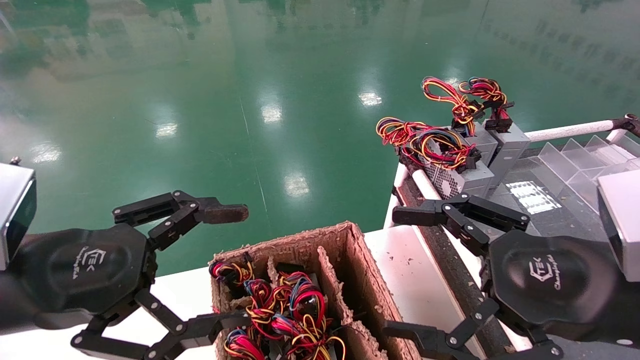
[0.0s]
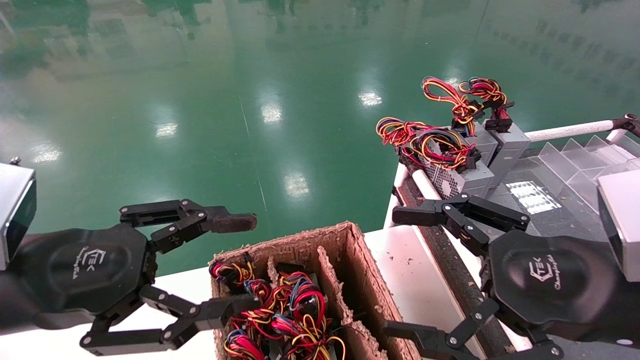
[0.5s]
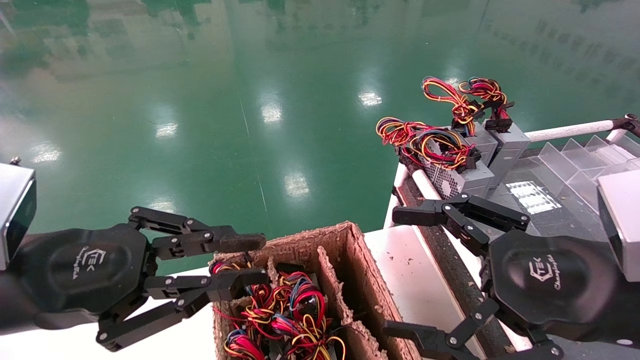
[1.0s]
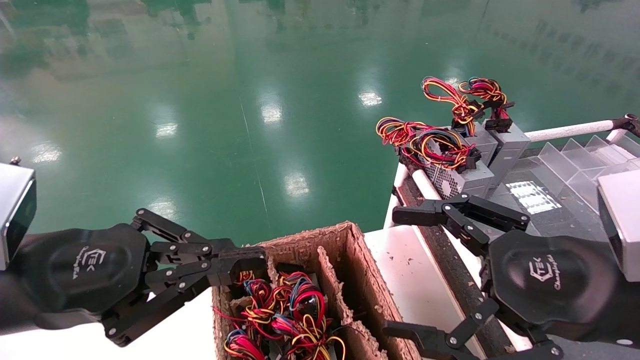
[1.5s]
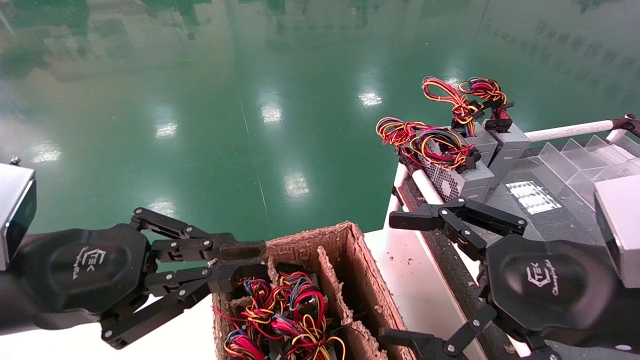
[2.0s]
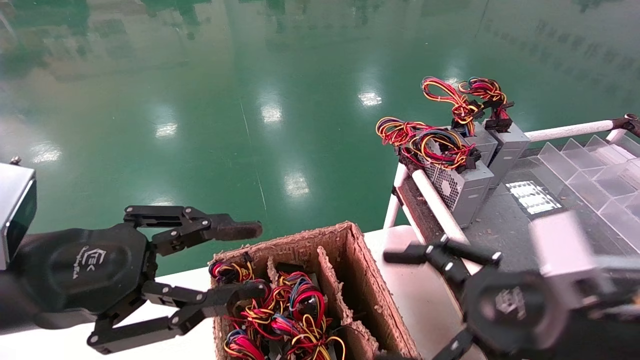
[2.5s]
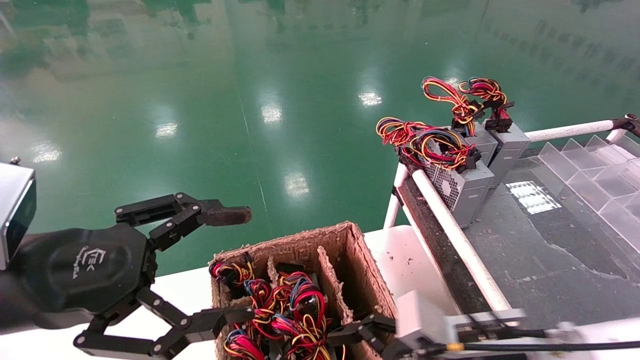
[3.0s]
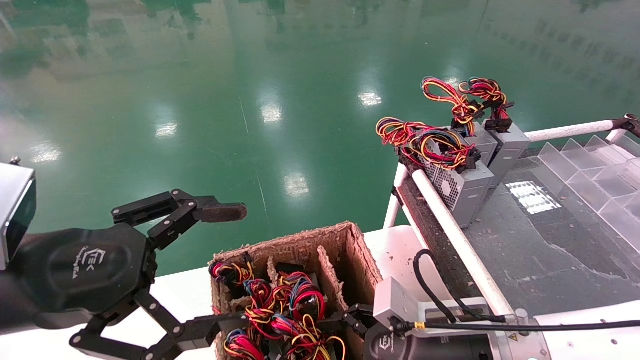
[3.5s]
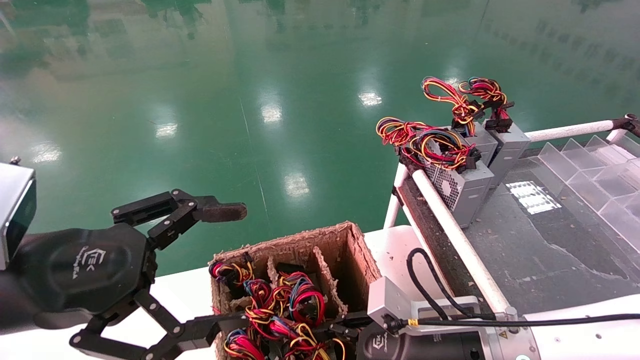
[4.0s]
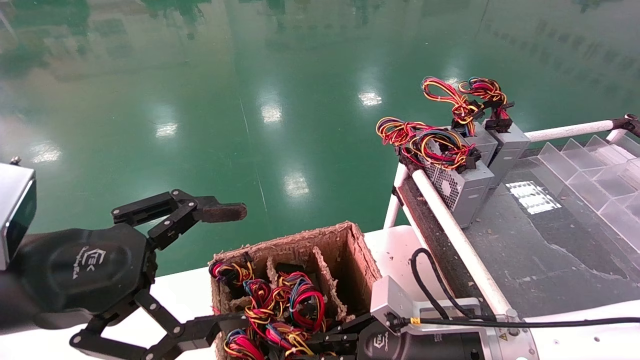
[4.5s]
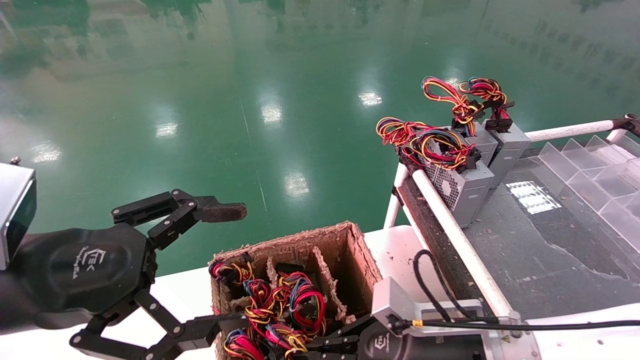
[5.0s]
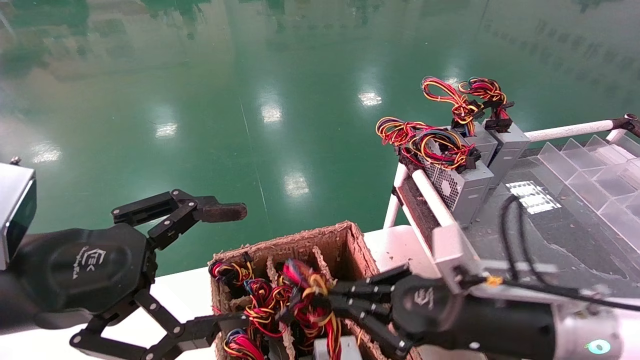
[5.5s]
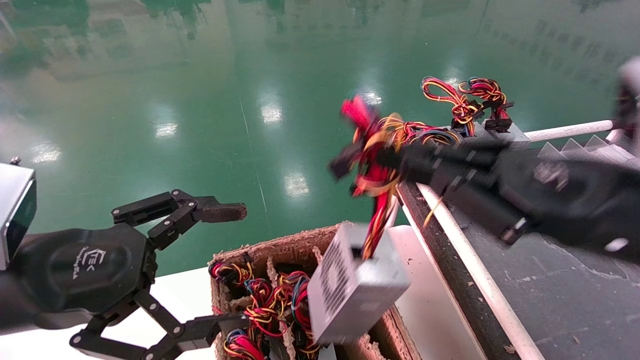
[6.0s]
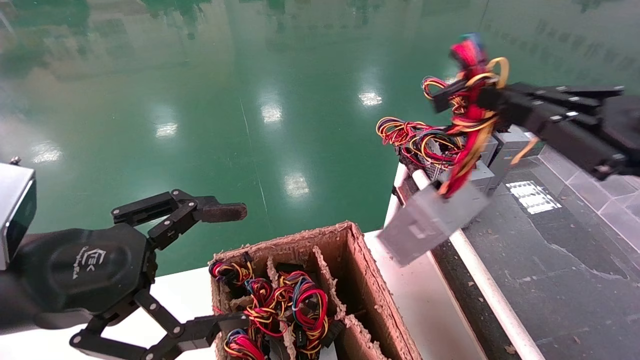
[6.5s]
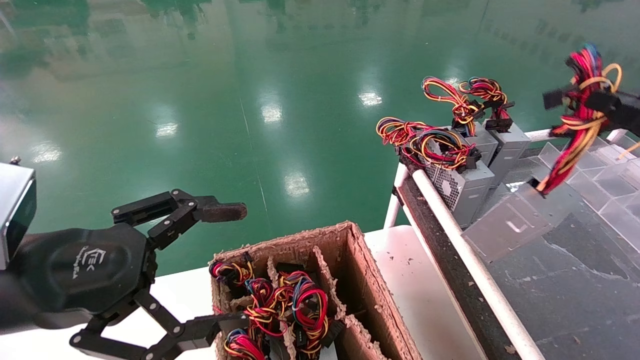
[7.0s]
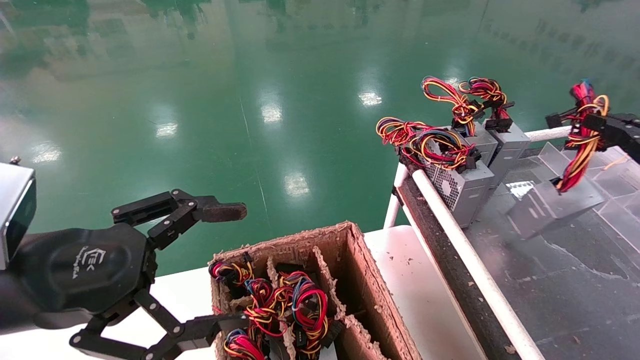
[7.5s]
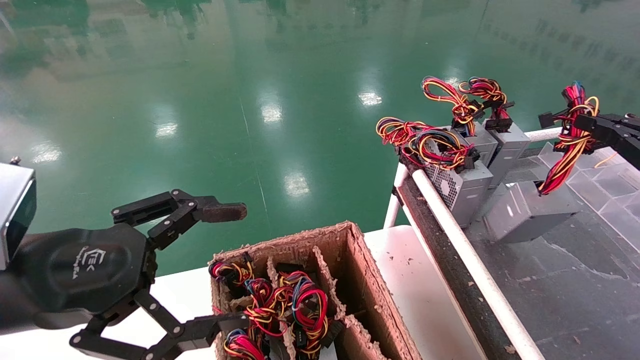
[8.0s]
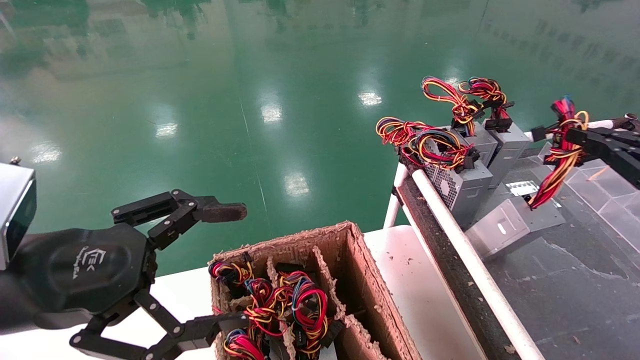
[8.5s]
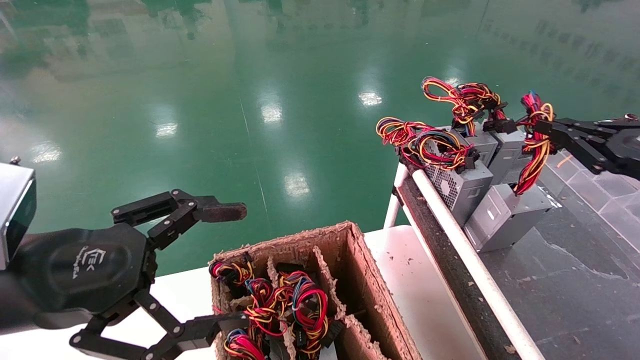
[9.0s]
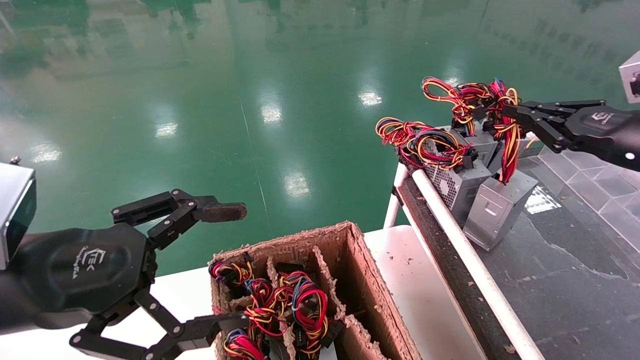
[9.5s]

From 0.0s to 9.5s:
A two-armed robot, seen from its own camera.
Step, from 1.5s to 4.5s: Grab and lift the power supply from the large box.
From 0.0s to 2.0s: The left gripper closes.
From 2.0s to 4.0s: The left gripper opens up. Meanwhile the right gripper is displaced downward, forward and to the left by about 20 cm, and closes.
From 4.0s to 5.5s: The right gripper travels upward by about 5 cm, and closes up.
From 5.5s to 7.5s: The right gripper heads to the right and upward, covering approximately 30 cm.
From 7.5s to 9.5s: The right gripper shifts roughly 10 cm forward and to the left.

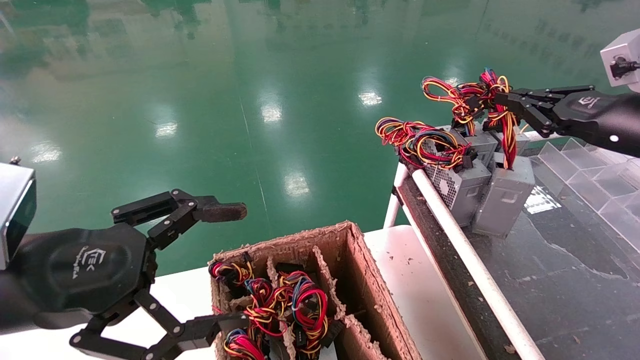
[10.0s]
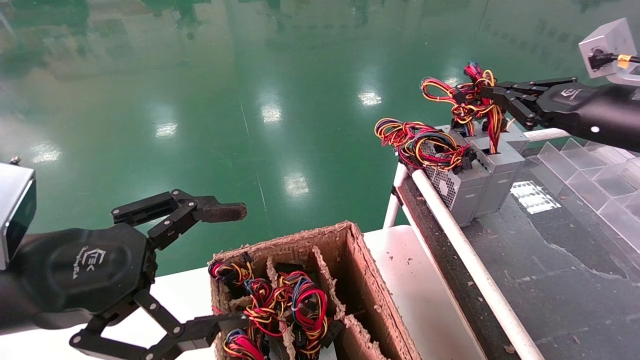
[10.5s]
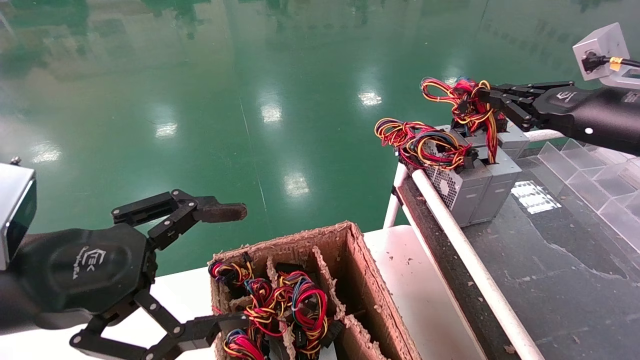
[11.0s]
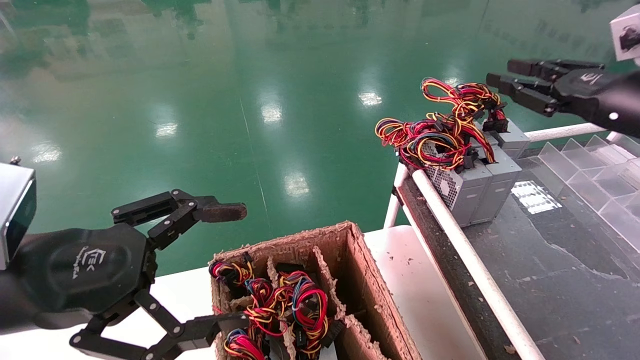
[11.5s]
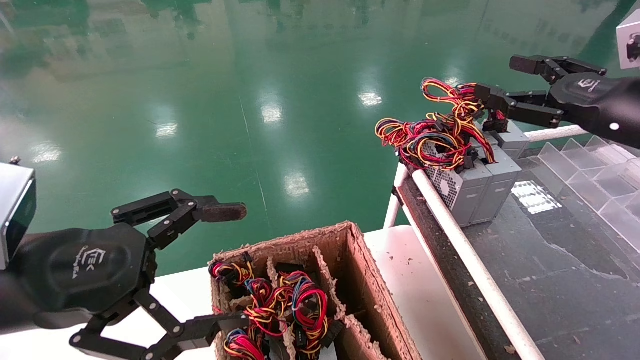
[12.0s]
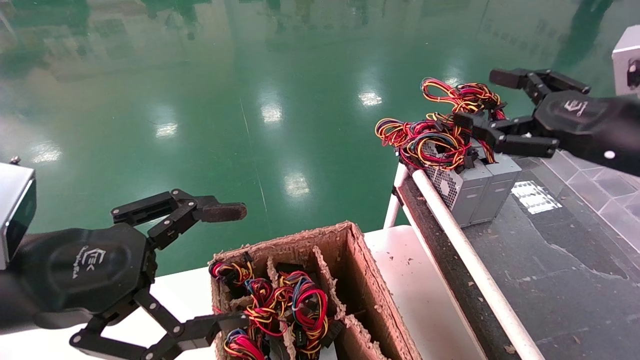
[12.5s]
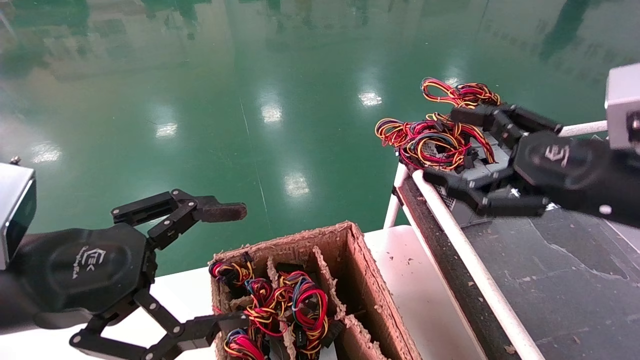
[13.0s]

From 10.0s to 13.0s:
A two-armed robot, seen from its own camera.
From 10.0s to 11.5s: The grippers make only small movements.
From 11.5s to 13.0s: The right gripper moves backward, to the left and downward, some 15 cm, and opens its fingers.

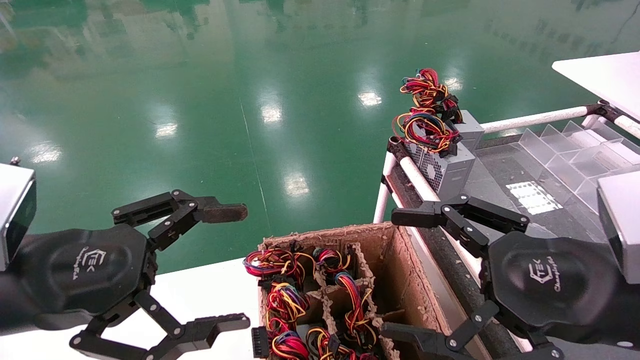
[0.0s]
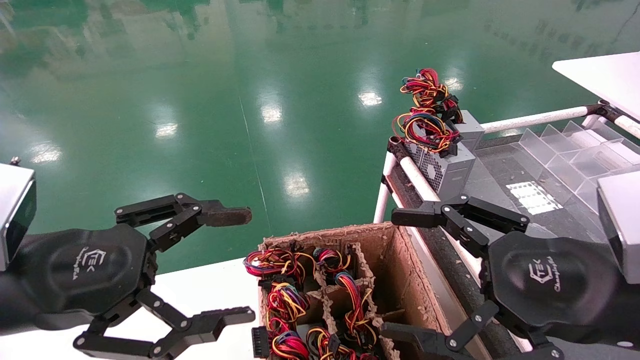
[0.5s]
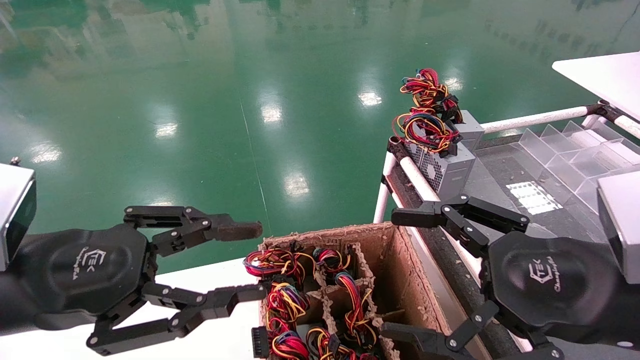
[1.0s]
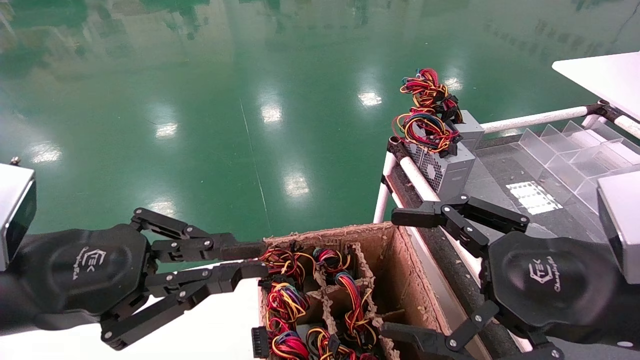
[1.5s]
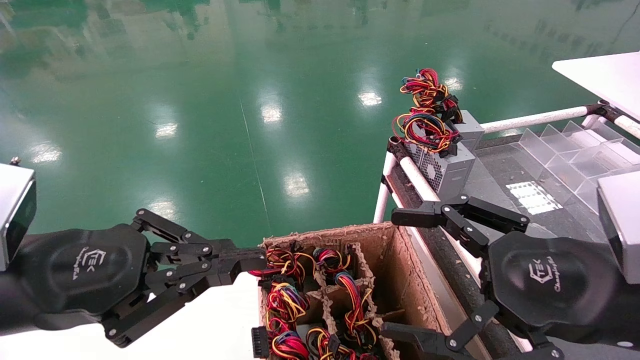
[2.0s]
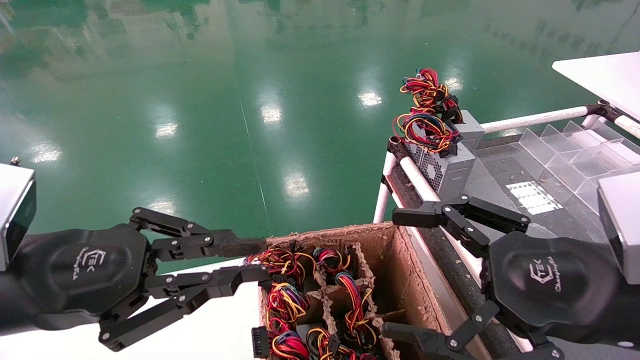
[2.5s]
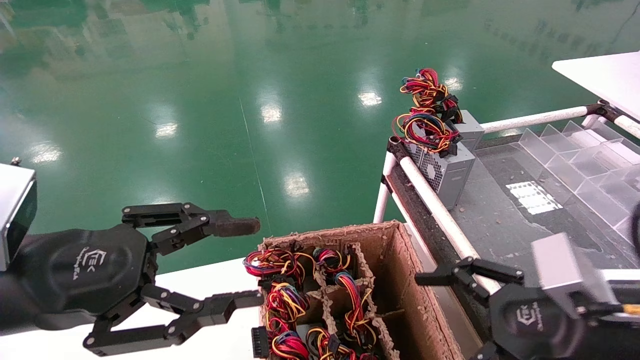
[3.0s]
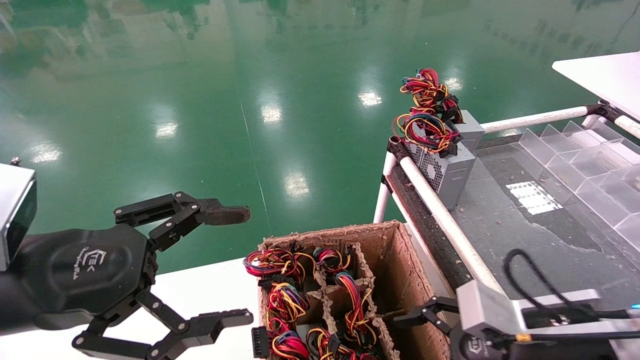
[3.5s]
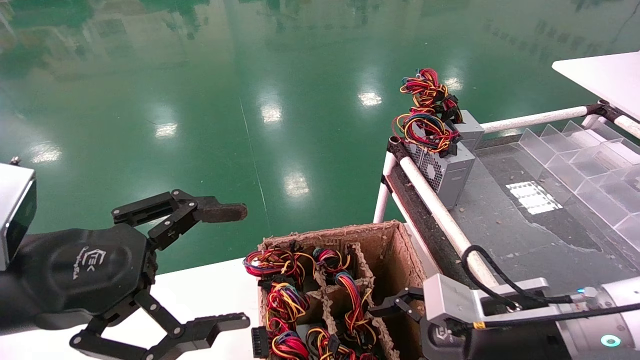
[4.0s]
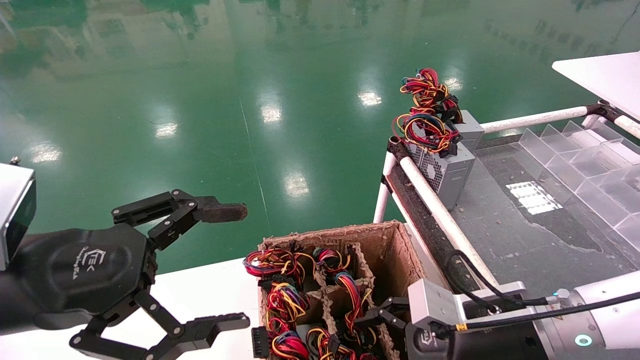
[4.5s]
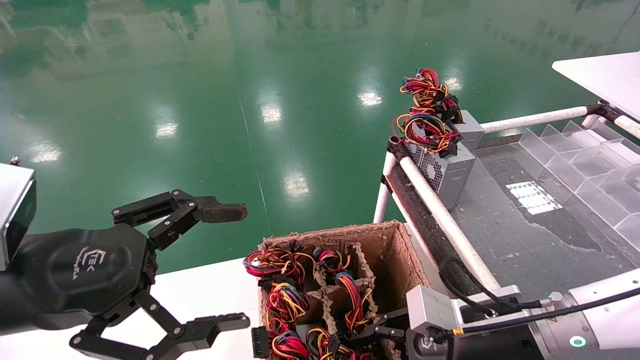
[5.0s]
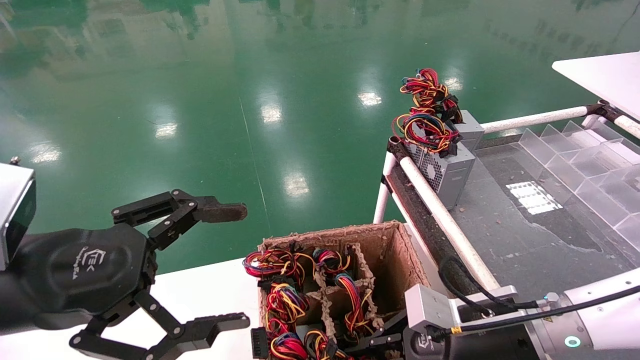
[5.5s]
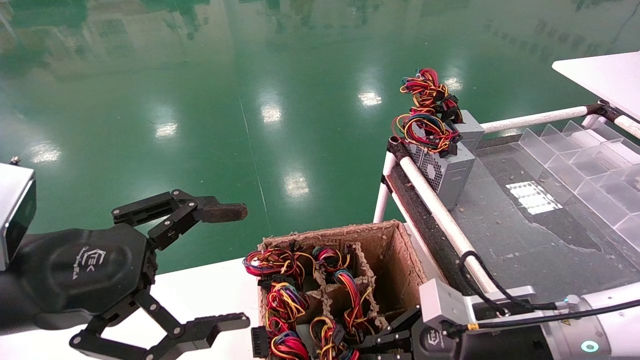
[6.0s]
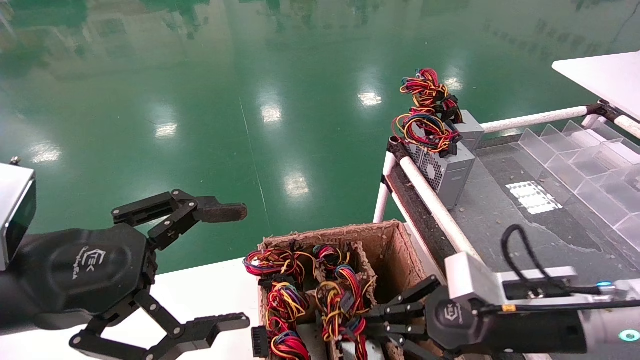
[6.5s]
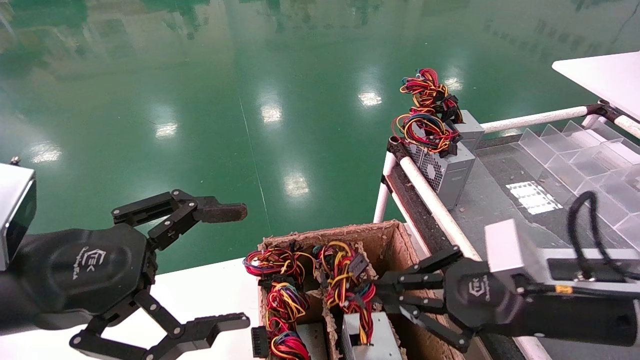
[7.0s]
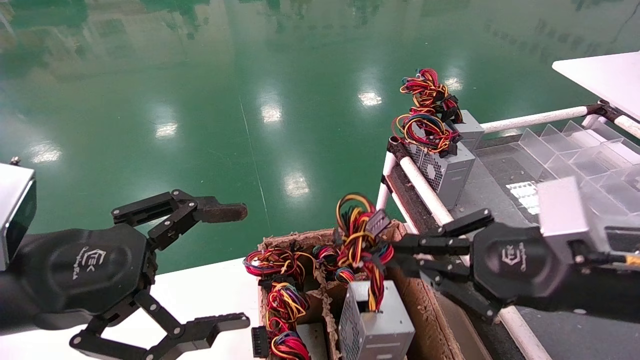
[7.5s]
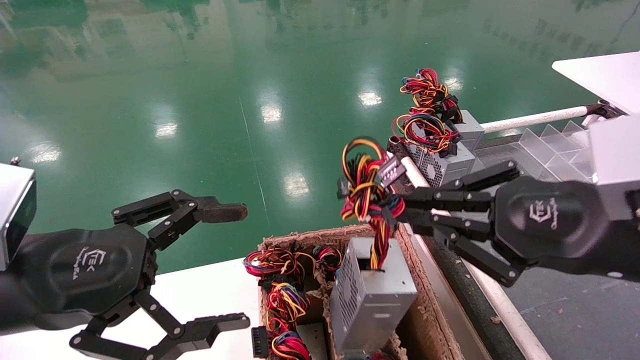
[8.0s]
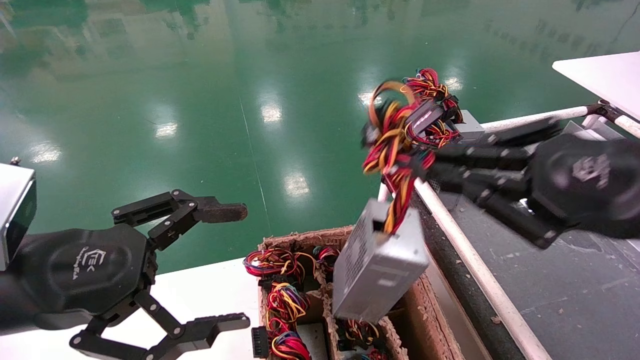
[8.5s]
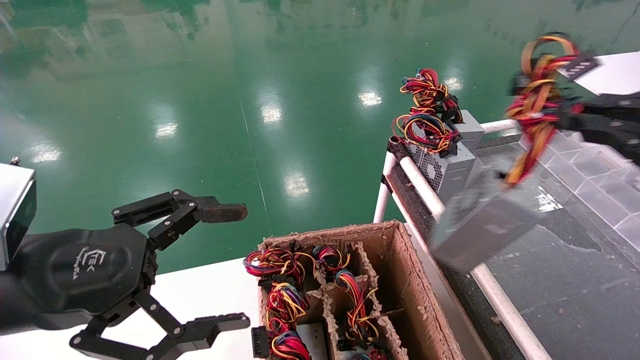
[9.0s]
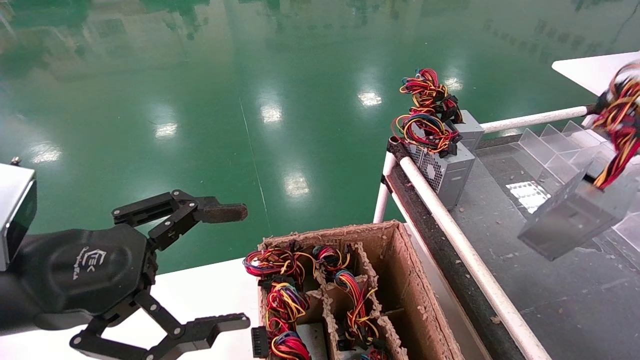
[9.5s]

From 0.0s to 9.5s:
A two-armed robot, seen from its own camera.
Step, from 2.0s to 5.5s: Grab and lift the power supply from the large box.
From 0.0s to 2.0s: The left gripper closes.
From 2.0s to 4.0s: The right gripper is displaced downward and forward by roughly 15 cm, while the left gripper opens up.
From 4.0s to 5.5s: The right gripper closes.
From 5.5s to 7.5s: The right gripper is displaced upward and backward by some 15 cm.
From 7.5s to 9.5s: The right gripper shifts roughly 20 cm to the right.
